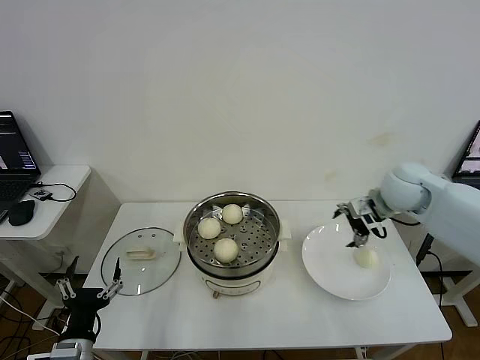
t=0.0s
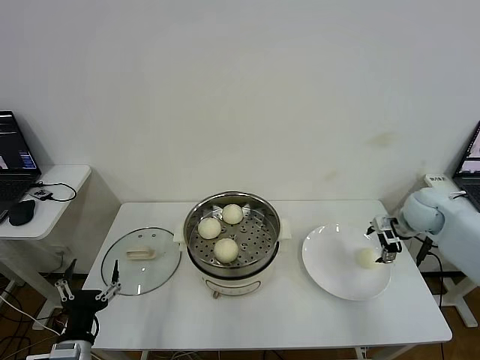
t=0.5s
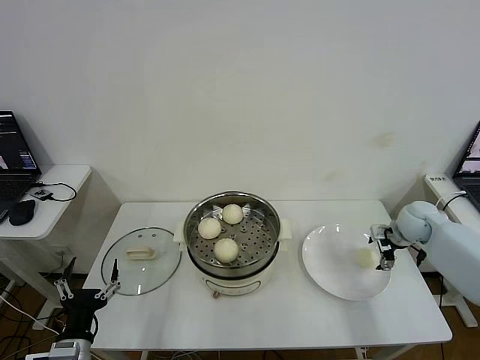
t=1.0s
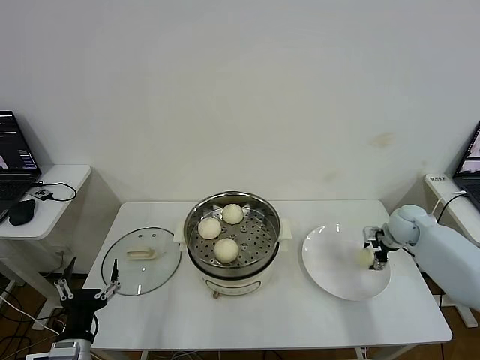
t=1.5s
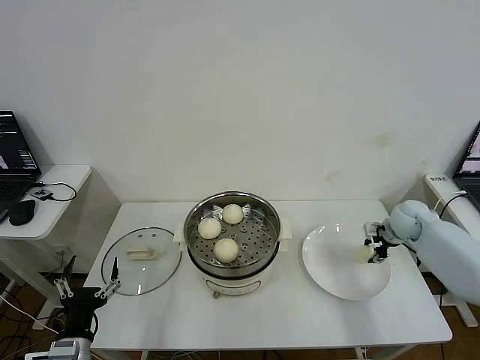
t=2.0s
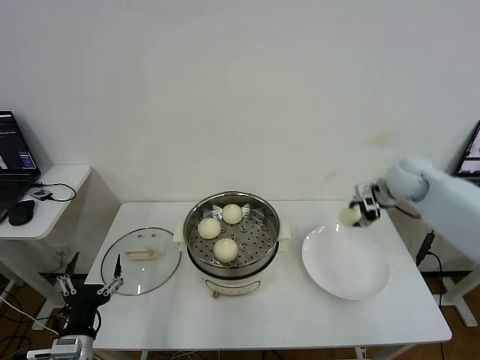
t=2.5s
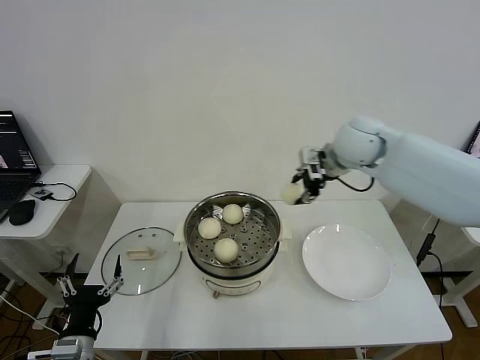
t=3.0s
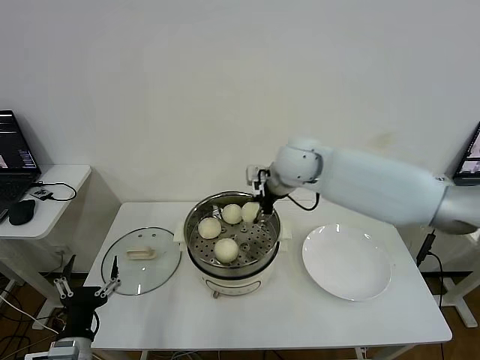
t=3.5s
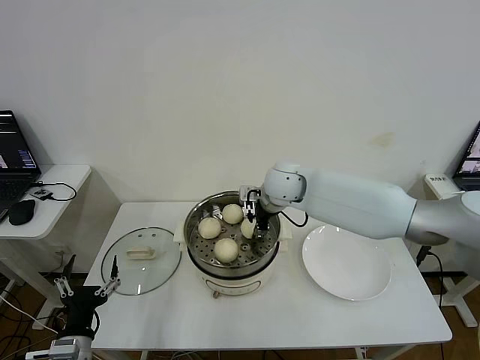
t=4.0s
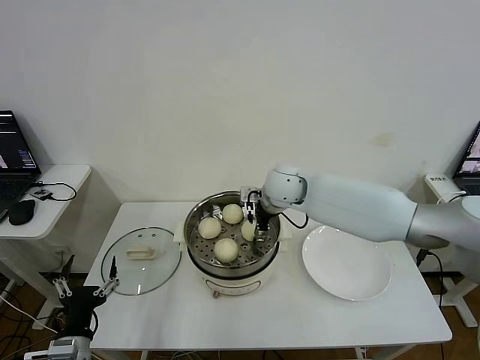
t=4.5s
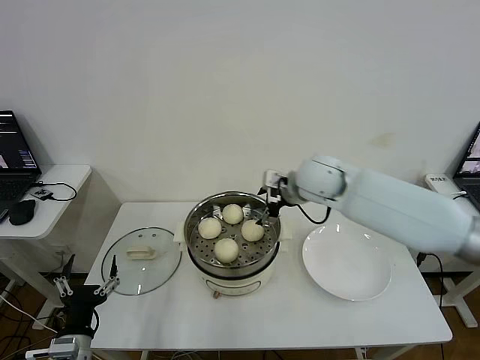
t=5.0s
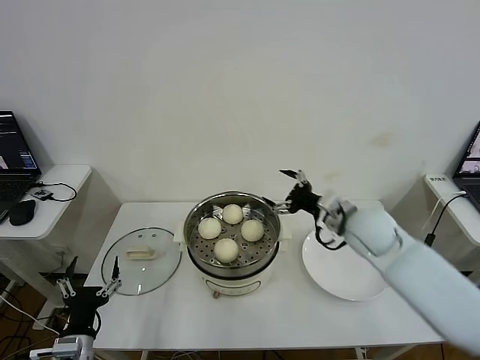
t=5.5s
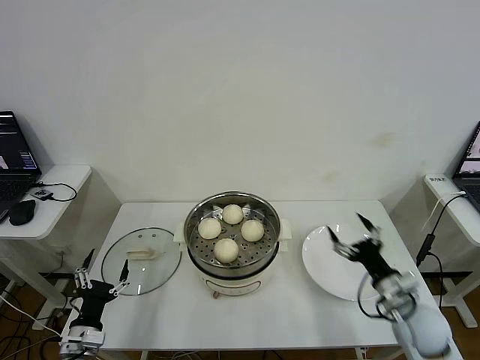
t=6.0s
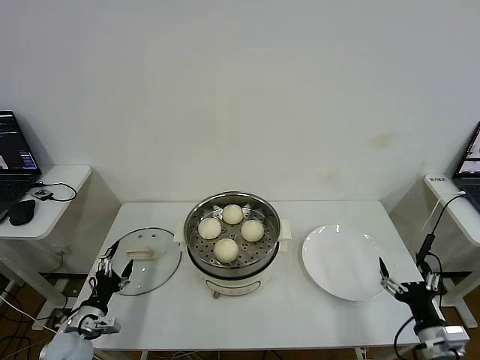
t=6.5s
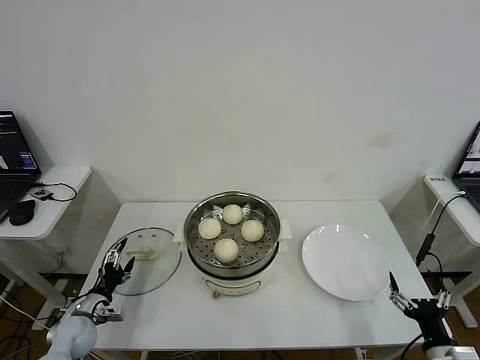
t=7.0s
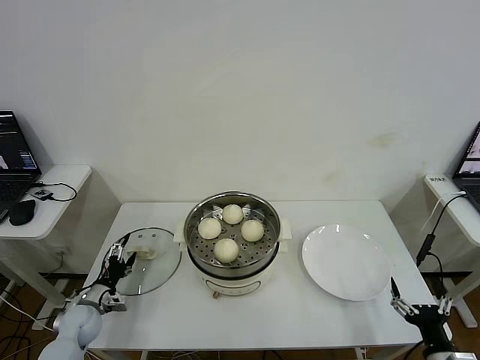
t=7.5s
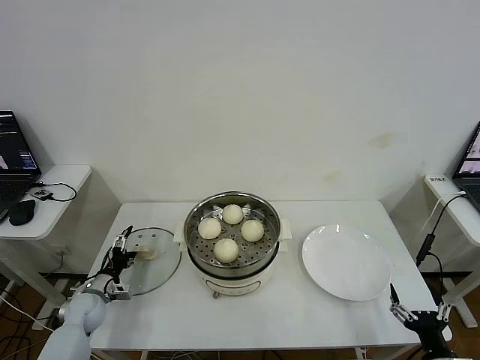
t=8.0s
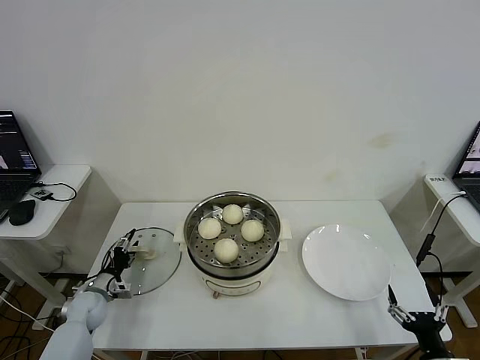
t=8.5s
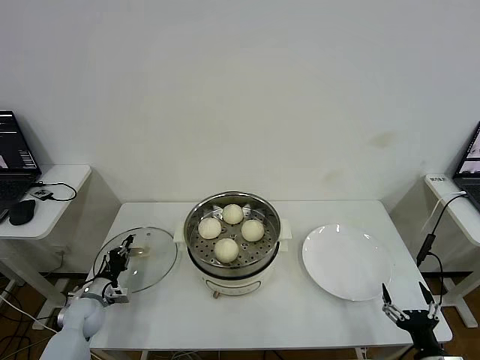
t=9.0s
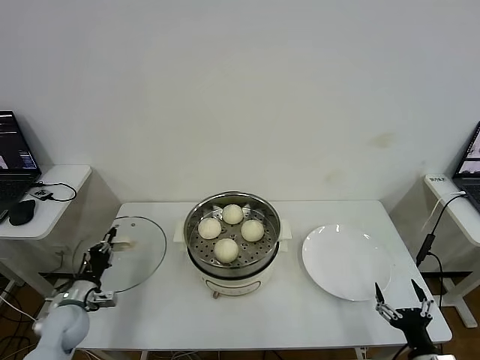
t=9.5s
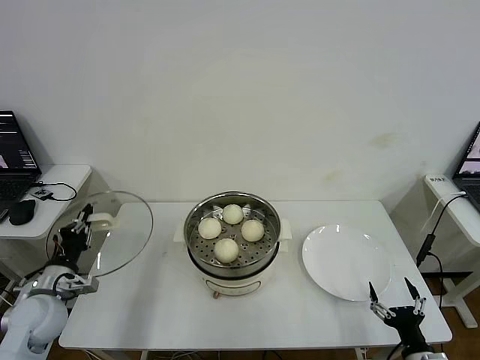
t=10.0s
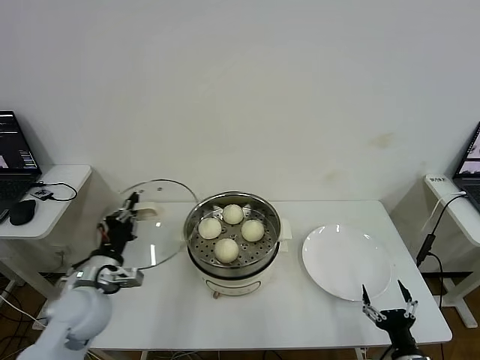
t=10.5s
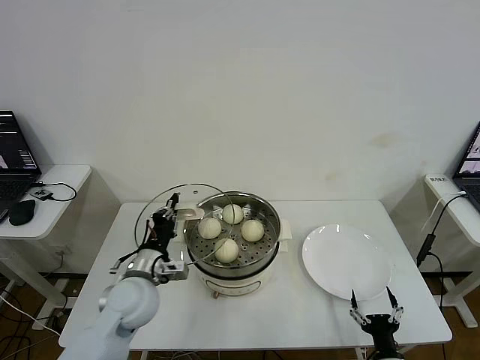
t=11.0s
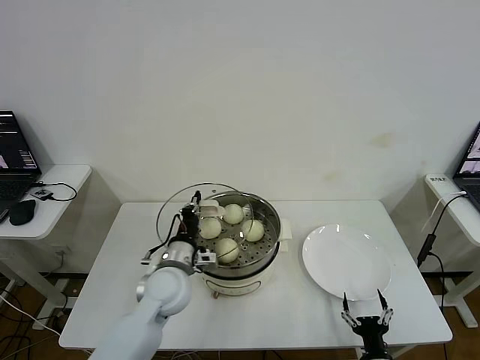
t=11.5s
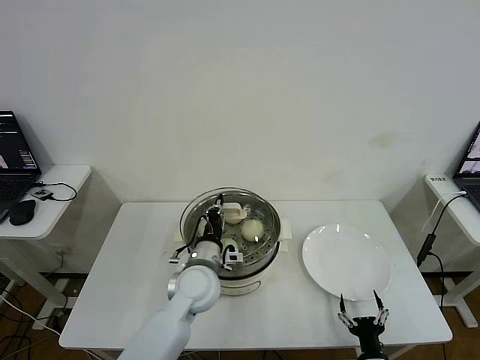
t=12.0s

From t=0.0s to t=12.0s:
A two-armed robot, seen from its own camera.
Step, from t=0.0s to t=1.5s: Grasp the baozi in the plate with right gripper.
Step, from t=2.0s to t=4.5s: Place the baozi on the steamer with right gripper.
Step, from t=5.0s to t=9.0s: Grasp the pot lid with left gripper.
From t=0.0s to t=2.0s: The right gripper heads downward and to the right, covering roughly 15 cm, and closes its fingers.
From t=2.0s to t=4.0s: The right gripper travels to the left by roughly 35 cm.
From t=4.0s to t=6.0s: The left gripper ends up some 5 cm from where it was; the right gripper goes approximately 40 cm to the right, backward and downward, and opens.
From t=6.0s to t=8.0s: The left gripper moves forward, about 15 cm. Meanwhile the right gripper is displaced backward by some 15 cm.
From t=8.0s to t=10.0s: The left gripper travels upward and backward by roughly 15 cm, and closes up.
From t=10.0s to t=12.0s: The left gripper heads to the right, covering some 30 cm. Meanwhile the right gripper moves downward and to the left, some 10 cm.

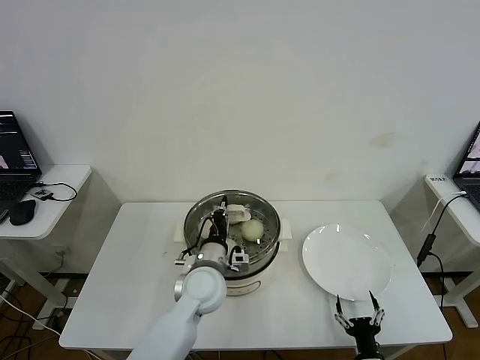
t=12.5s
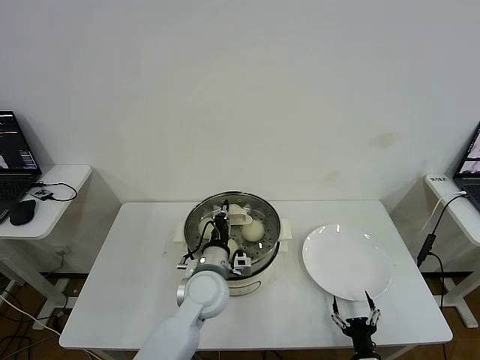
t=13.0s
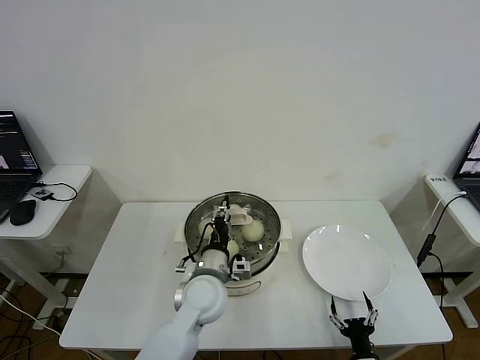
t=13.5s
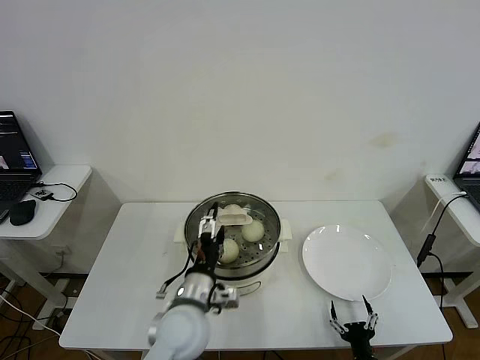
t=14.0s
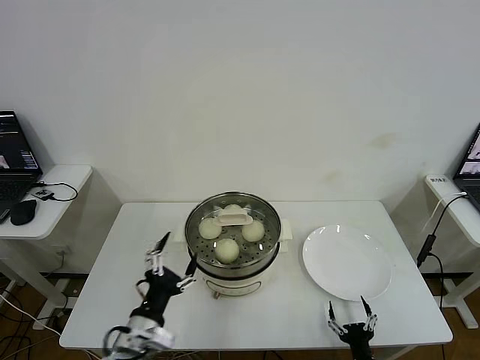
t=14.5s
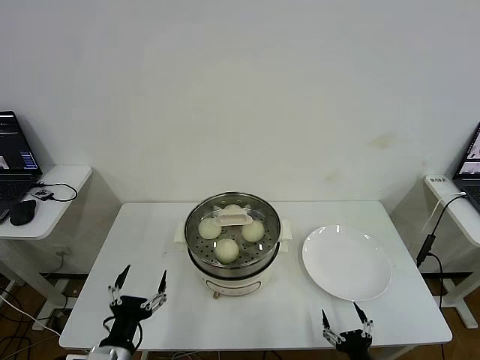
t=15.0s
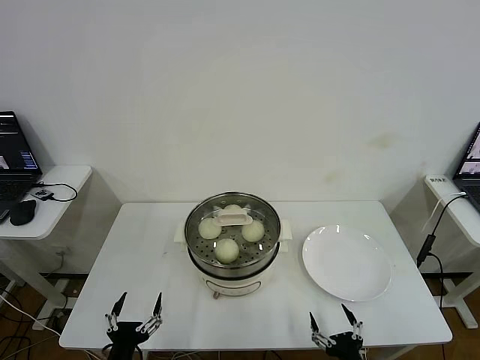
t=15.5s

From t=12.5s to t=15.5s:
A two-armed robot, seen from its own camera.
From t=12.5s to t=14.0s: The left gripper is displaced backward by roughly 10 cm, and opens its fingers.
From t=14.0s to t=15.5s: The right gripper is displaced upward by approximately 10 cm. Meanwhile the left gripper travels backward, to the left and downward by some 25 cm.

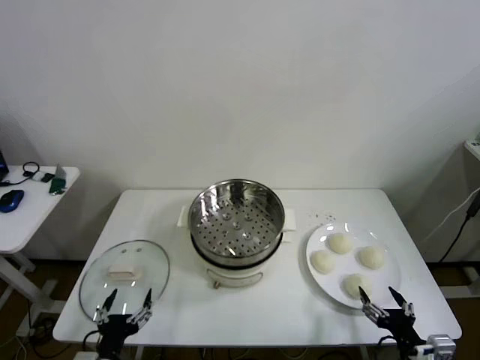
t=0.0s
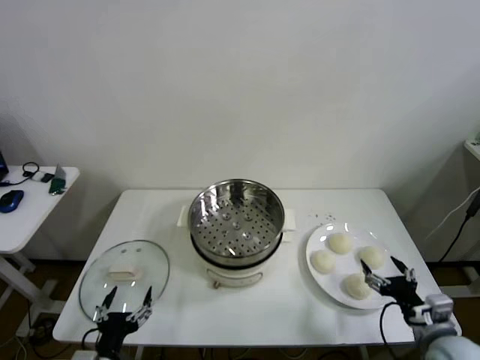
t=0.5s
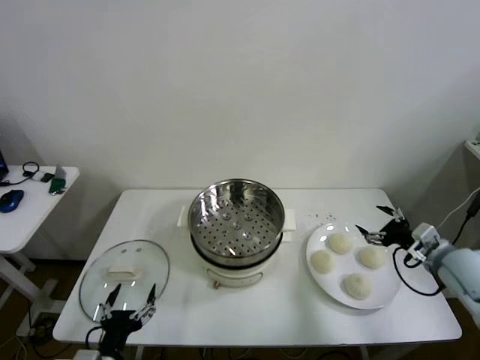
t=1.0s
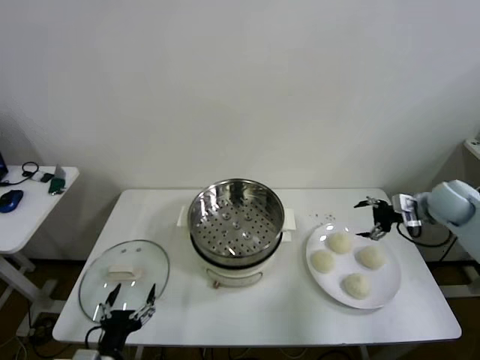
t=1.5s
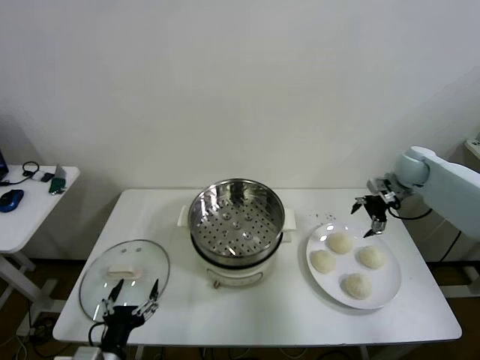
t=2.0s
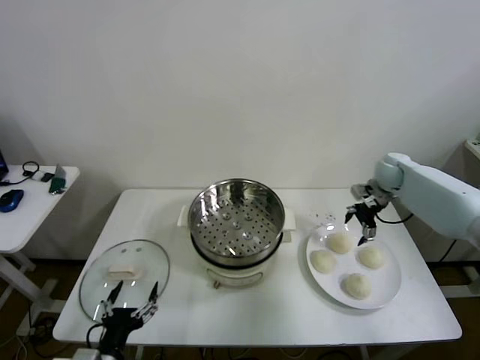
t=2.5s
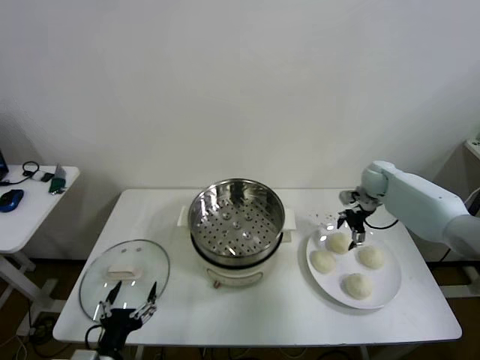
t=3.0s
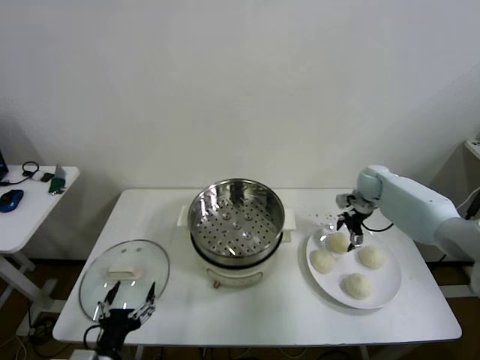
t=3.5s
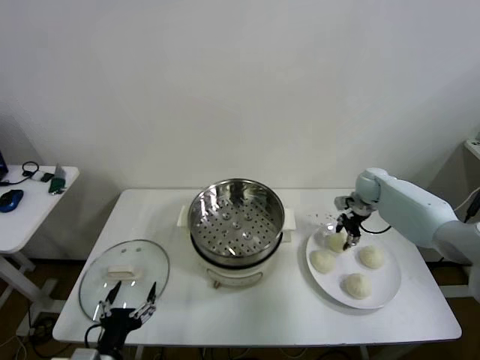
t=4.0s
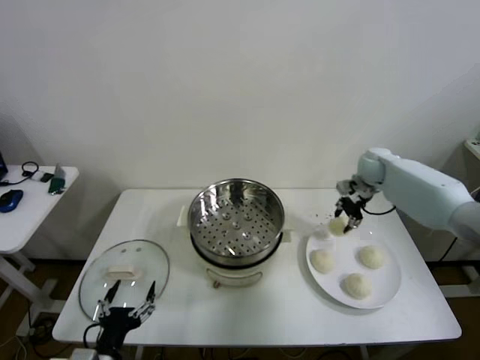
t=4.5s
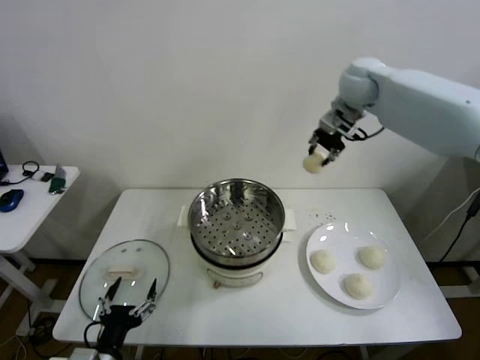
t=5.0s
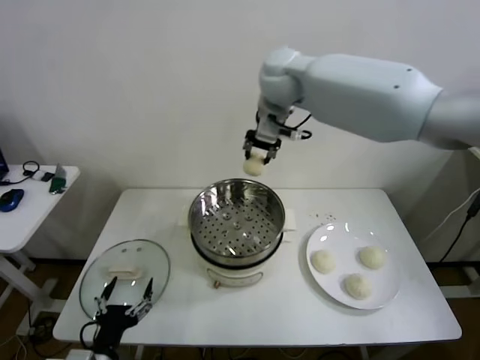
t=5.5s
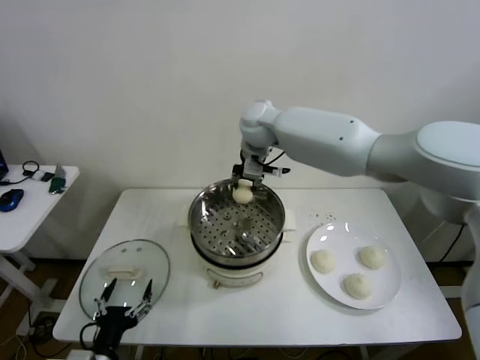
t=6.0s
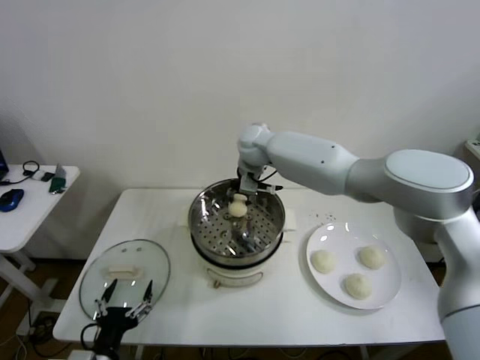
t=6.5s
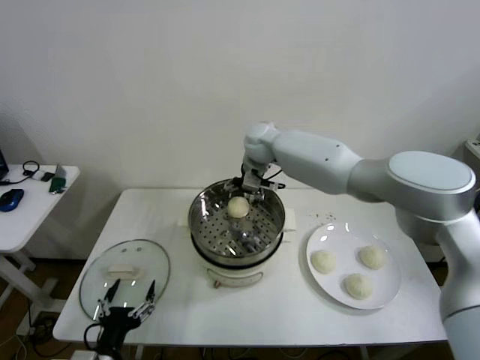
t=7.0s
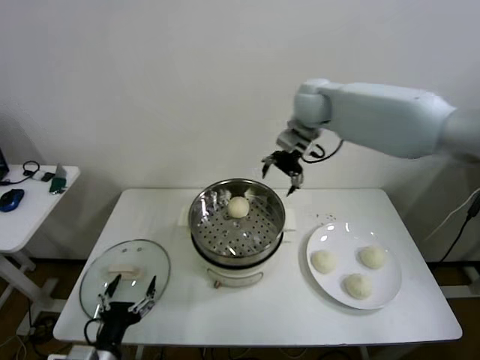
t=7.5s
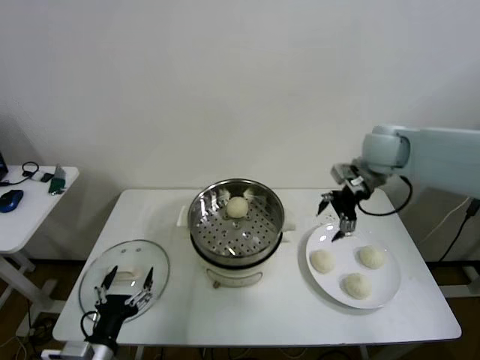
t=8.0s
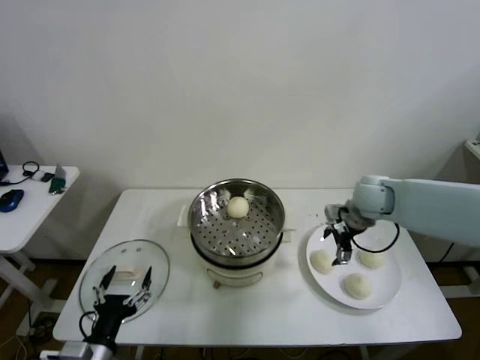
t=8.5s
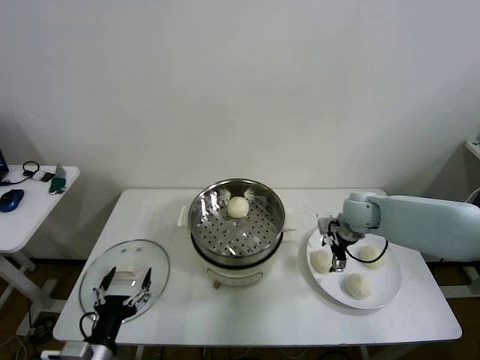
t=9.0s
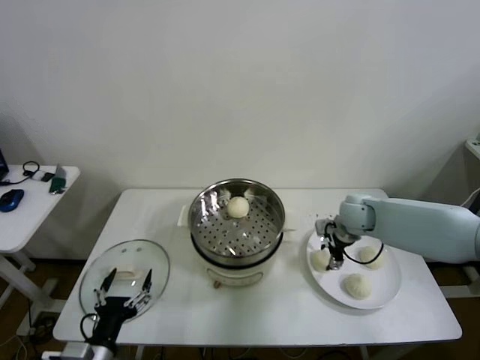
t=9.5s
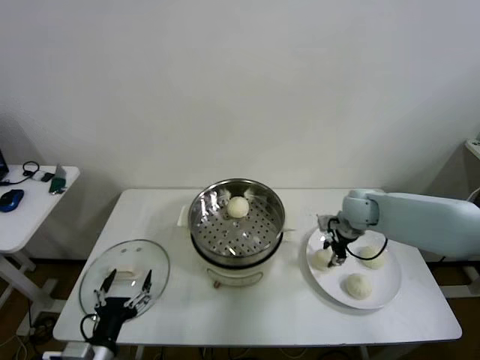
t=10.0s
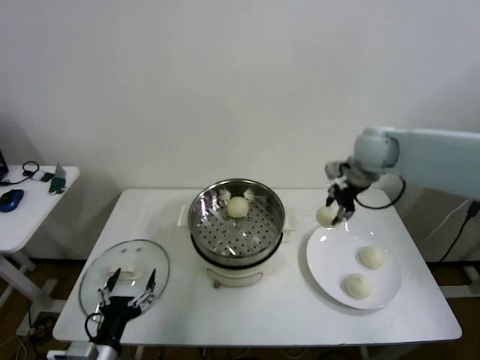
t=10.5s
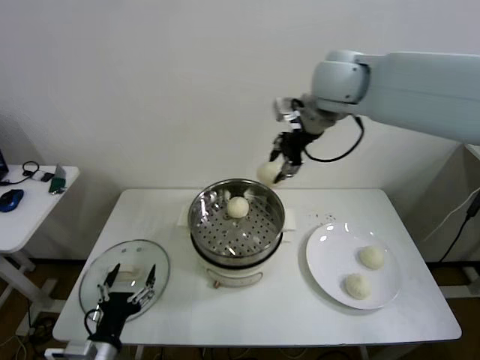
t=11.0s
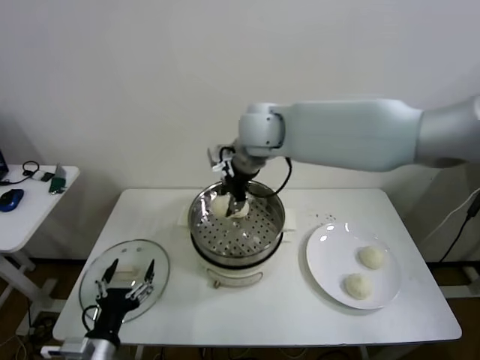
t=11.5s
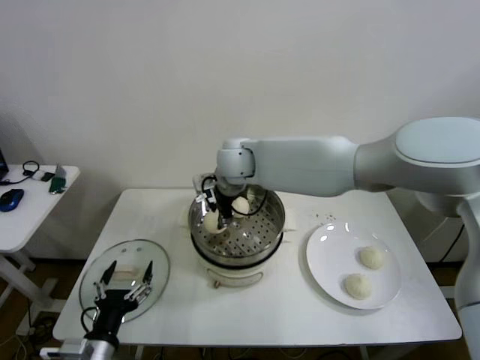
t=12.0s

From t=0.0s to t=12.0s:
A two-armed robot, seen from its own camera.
Step, from t=0.0s to t=3.5s: Grasp the baozi in the plate with right gripper.
Step, from t=4.0s to t=6.5s: Place the baozi on the steamer with right gripper.
Step, from t=7.0s to t=9.5s: Grasp the baozi in the plate with right gripper.
From t=2.0s to t=4.0s: The right gripper moves downward and to the left, roughly 10 cm, and closes up.
From t=4.0s to t=6.0s: The right gripper travels to the left and upward by roughly 40 cm.
From t=6.0s to t=8.0s: The right gripper is displaced to the right by about 25 cm, and opens its fingers.
From t=8.0s to t=10.0s: The right gripper heads downward, covering about 15 cm, and closes its fingers.
From t=10.0s to t=12.0s: The right gripper travels to the left and upward by about 35 cm.
